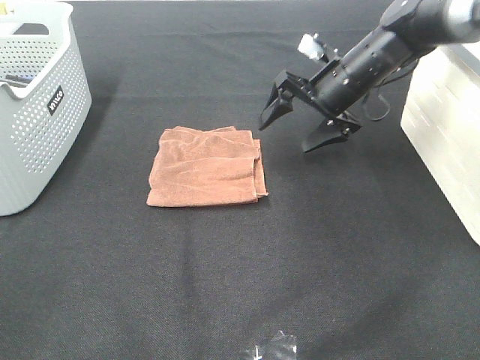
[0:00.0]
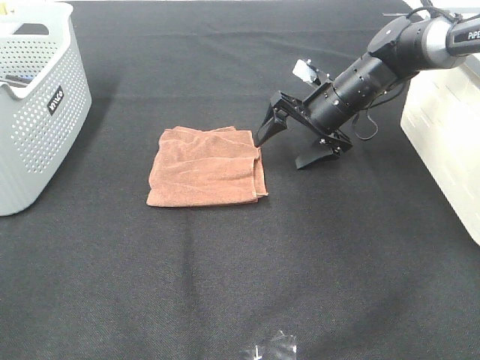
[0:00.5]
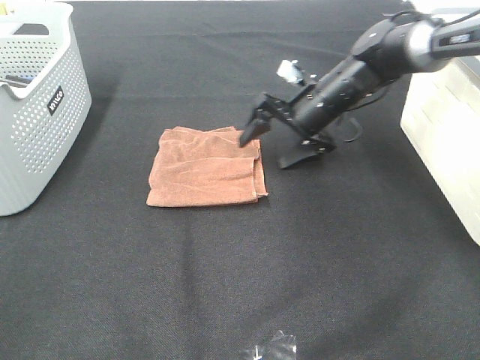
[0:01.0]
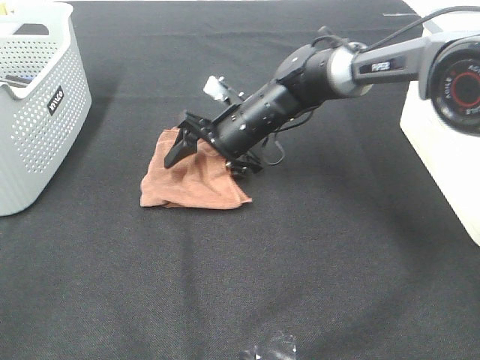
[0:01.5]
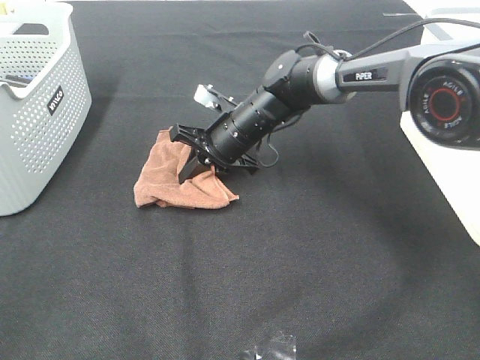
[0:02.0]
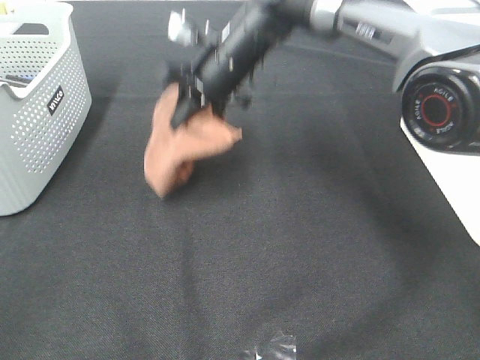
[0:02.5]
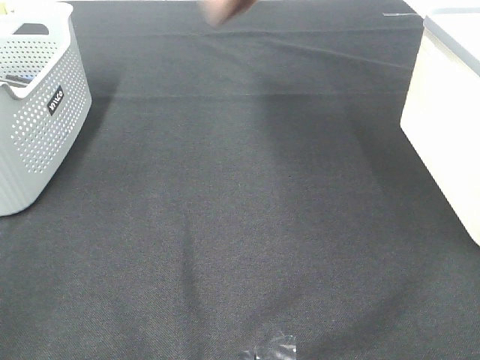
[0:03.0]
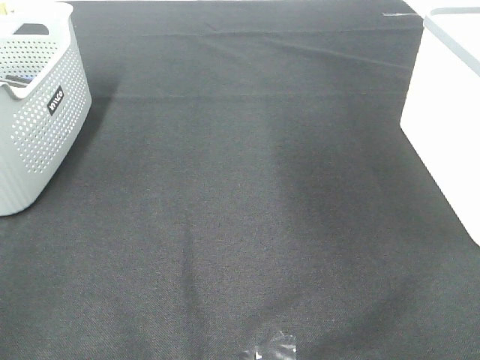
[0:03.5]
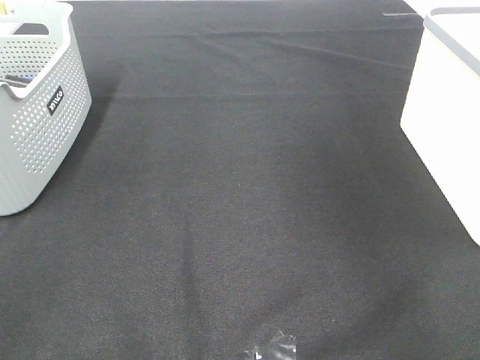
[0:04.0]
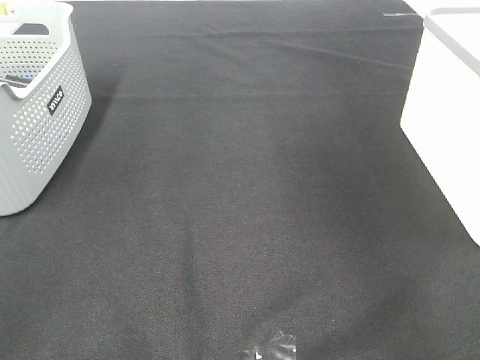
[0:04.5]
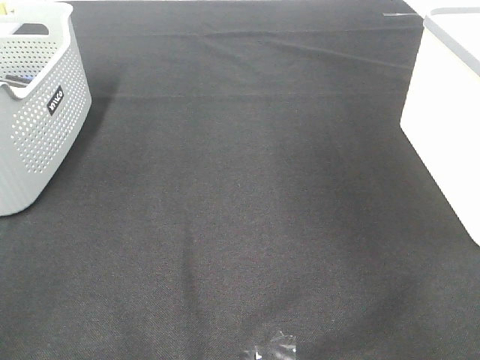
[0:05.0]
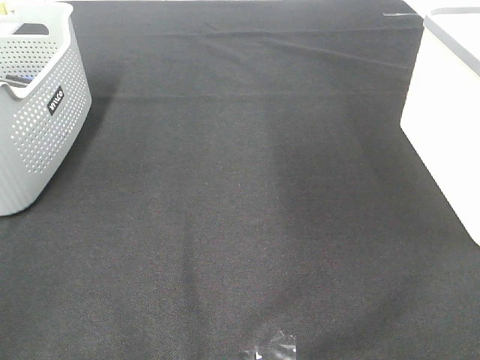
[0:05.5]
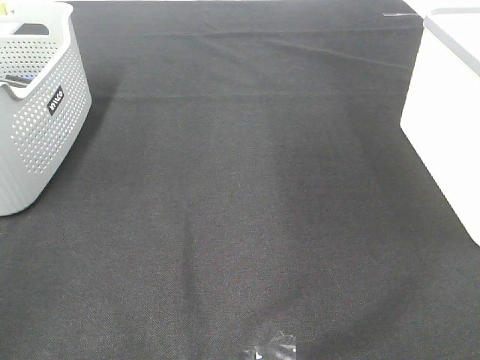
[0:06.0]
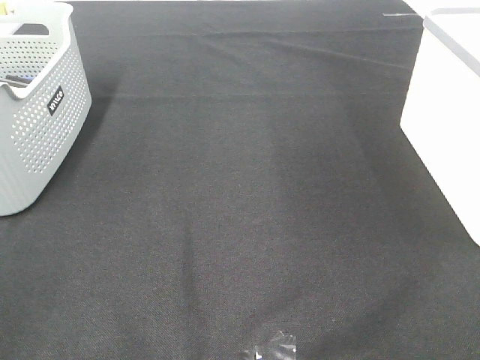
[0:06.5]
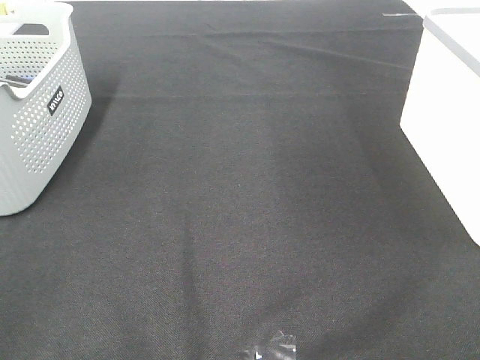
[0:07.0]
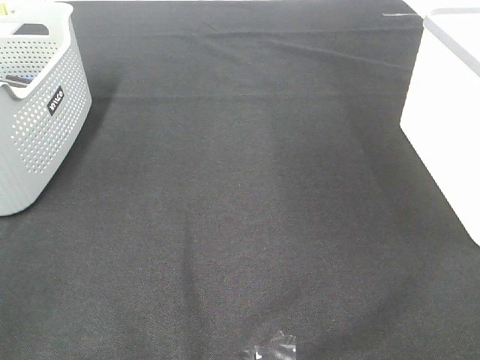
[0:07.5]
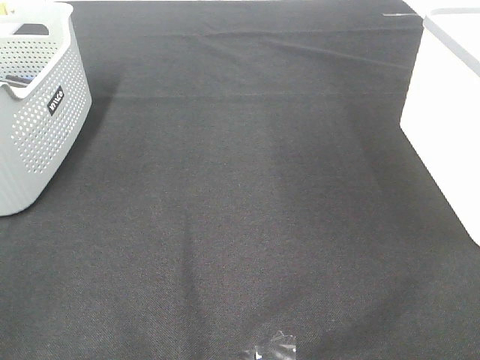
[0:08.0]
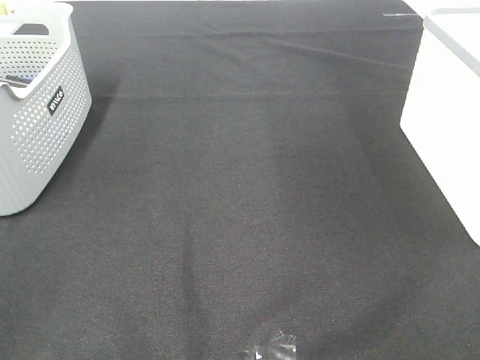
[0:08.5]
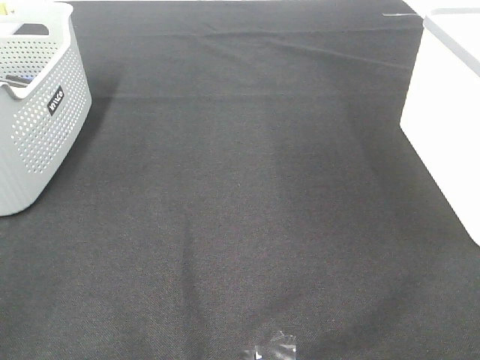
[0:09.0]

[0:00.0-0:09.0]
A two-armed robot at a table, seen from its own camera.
Step, 0:02.0 to 0:04.5: Right hand: place the brown towel in right basket.
0:00.0 to 0:02.0: The right gripper is displaced to the left and downward by roughly 15 cm, and closes up.
0:02.0 to 0:04.5: The right gripper is displaced to the right and upward by approximately 50 cm, and opens its fingers.

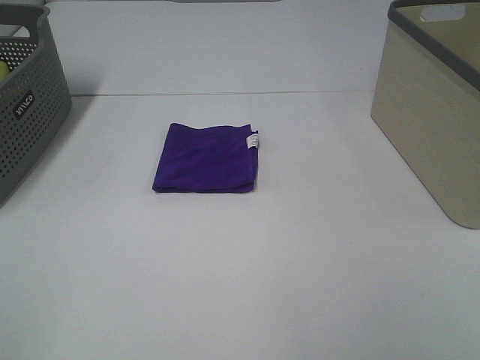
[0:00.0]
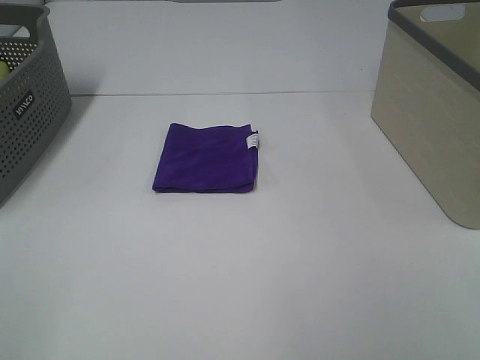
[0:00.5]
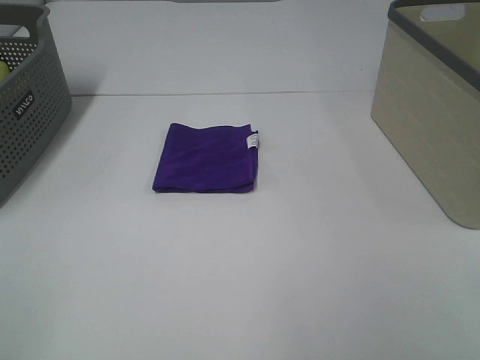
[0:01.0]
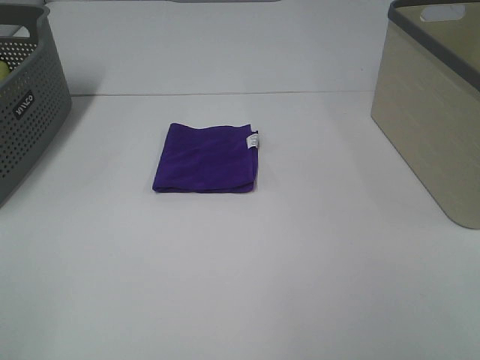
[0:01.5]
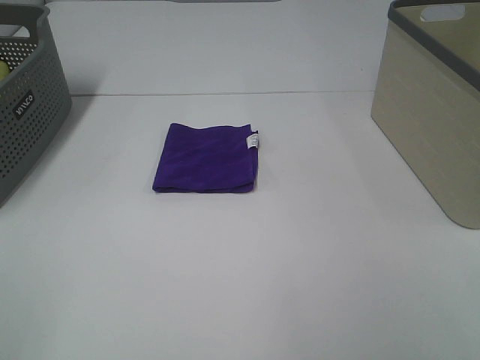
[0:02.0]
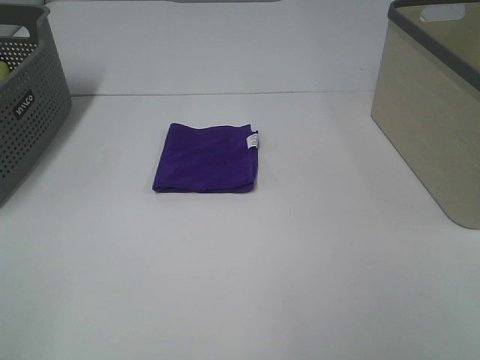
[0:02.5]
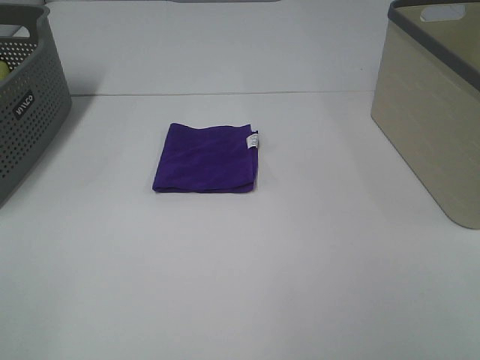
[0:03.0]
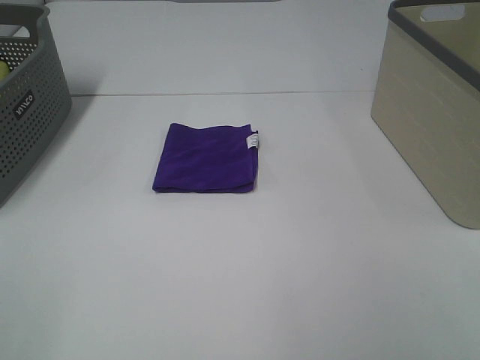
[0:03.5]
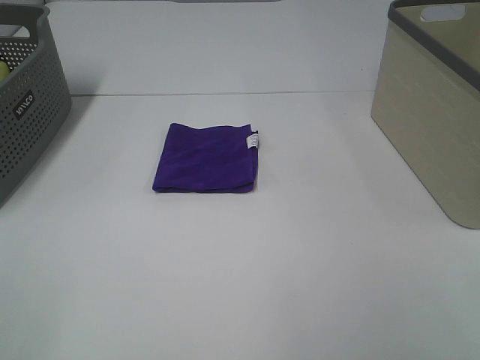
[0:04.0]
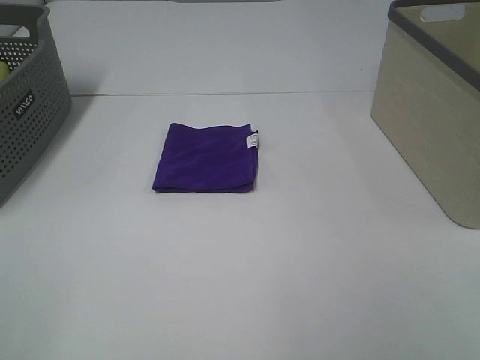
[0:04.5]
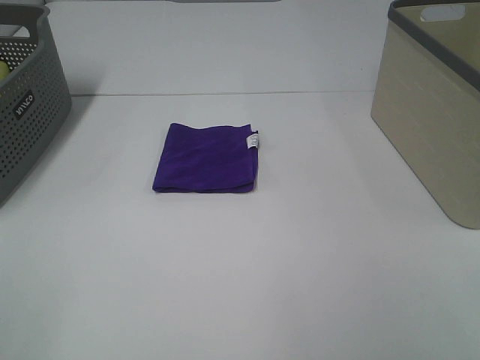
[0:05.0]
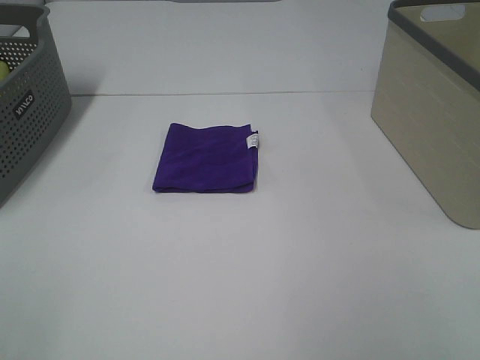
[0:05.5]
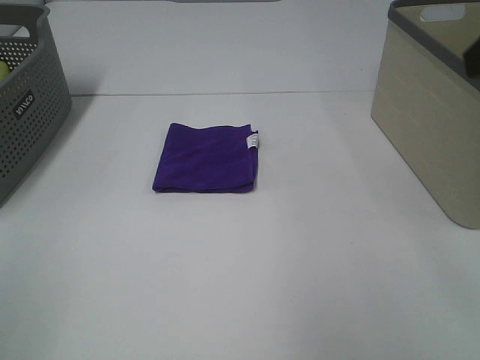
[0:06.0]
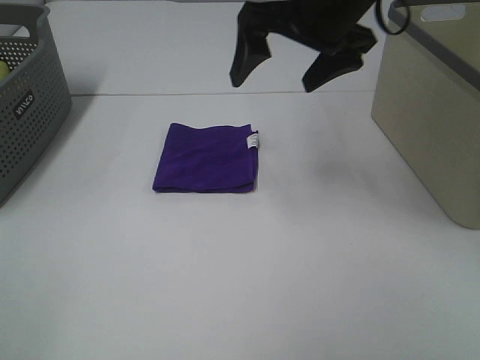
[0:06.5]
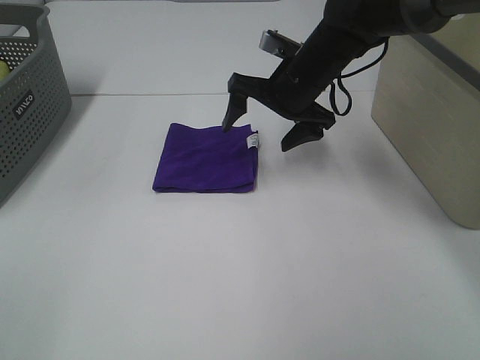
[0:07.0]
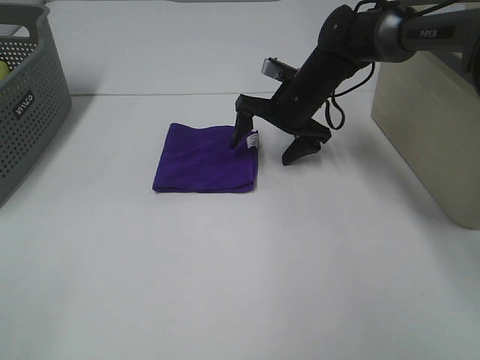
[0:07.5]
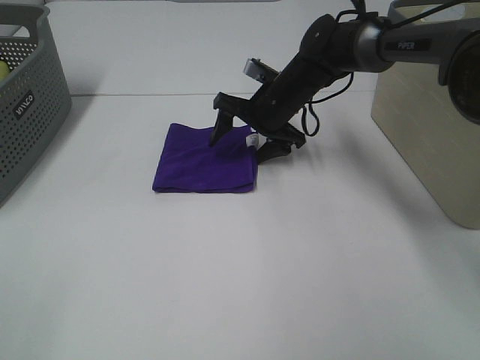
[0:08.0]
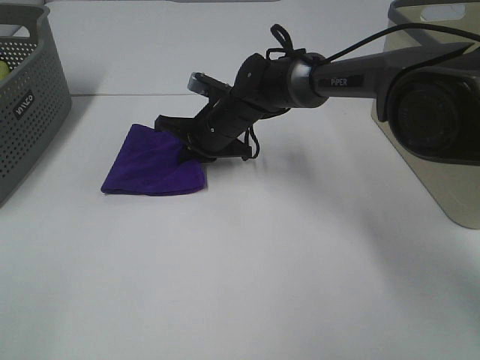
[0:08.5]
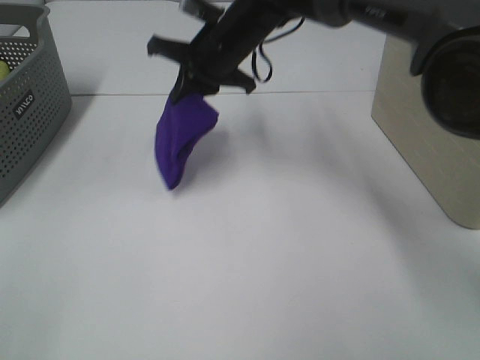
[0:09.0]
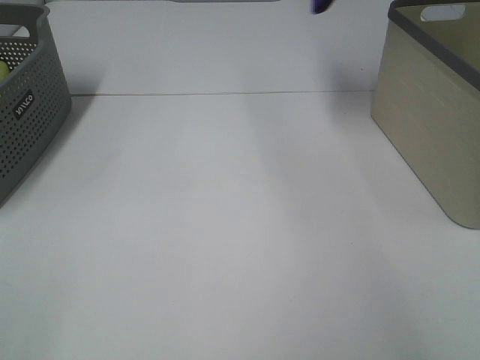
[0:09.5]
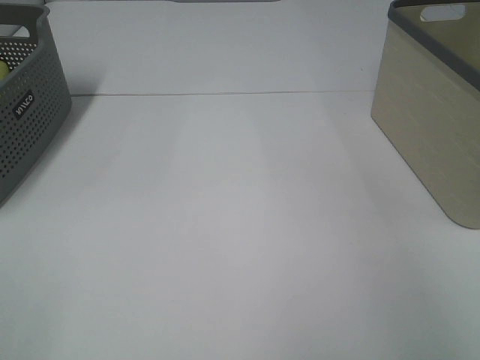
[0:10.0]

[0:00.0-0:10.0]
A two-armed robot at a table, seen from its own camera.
Step, 0:00.0 to 0:08.0: Right hand: grab the folded purple towel.
0:00.0 to 0:04.0: Both grippers stay about where they are.
0:06.0 to 0:08.0: The right gripper goes some 40 cm downward, forward and to the left.
0:08.0 to 0:10.0: The right gripper moves to the right and upward, approximately 50 cm, and closes.

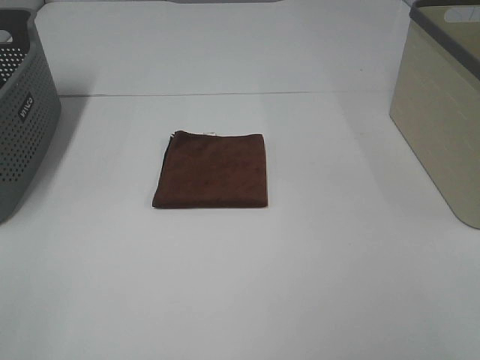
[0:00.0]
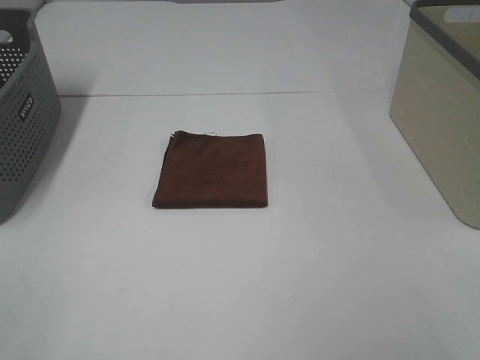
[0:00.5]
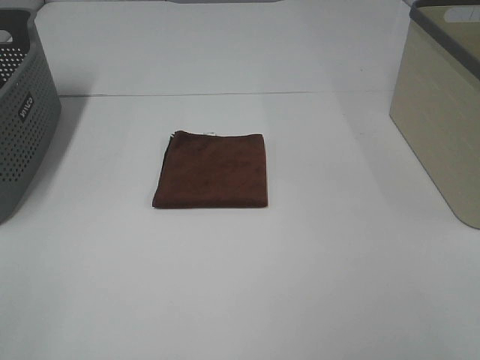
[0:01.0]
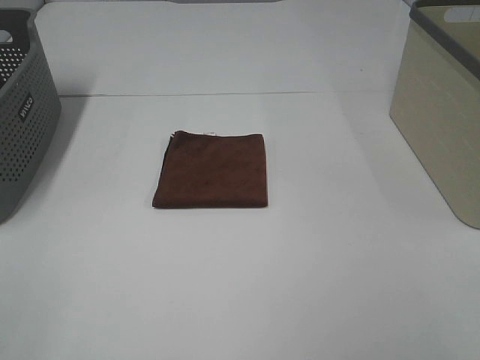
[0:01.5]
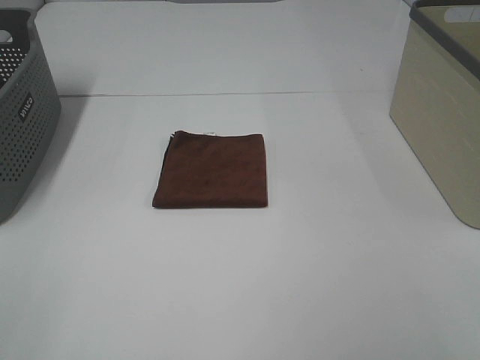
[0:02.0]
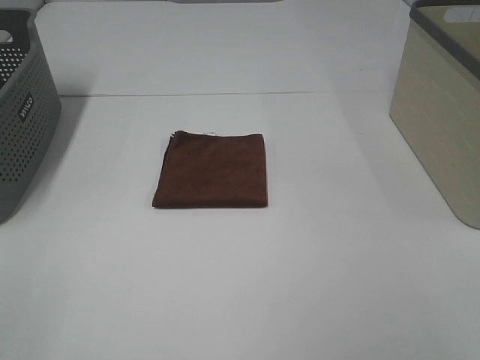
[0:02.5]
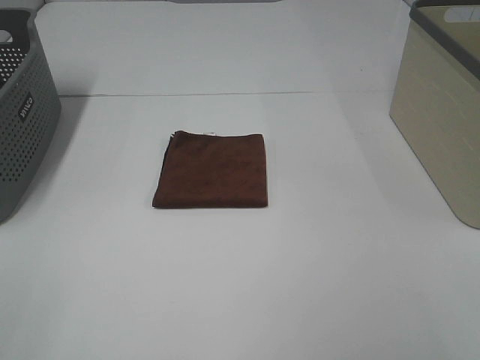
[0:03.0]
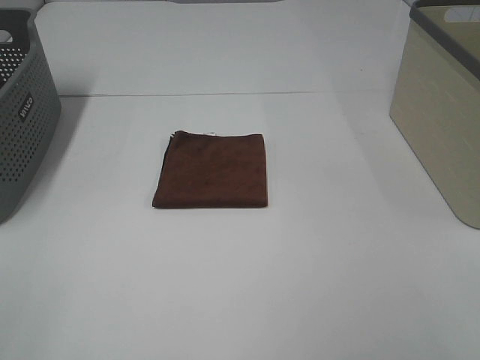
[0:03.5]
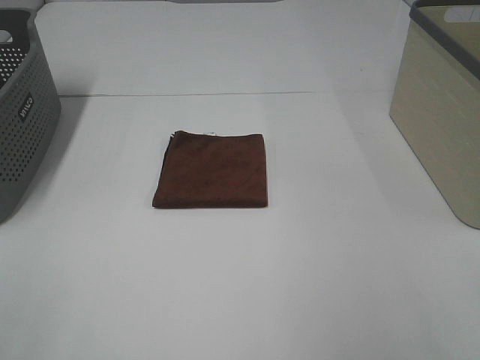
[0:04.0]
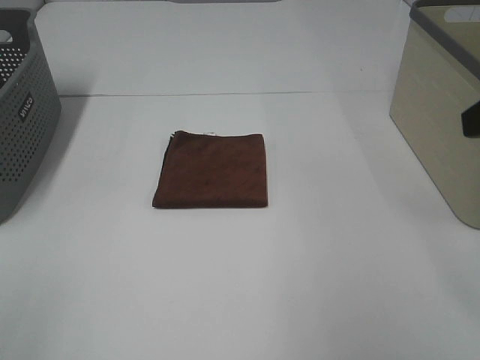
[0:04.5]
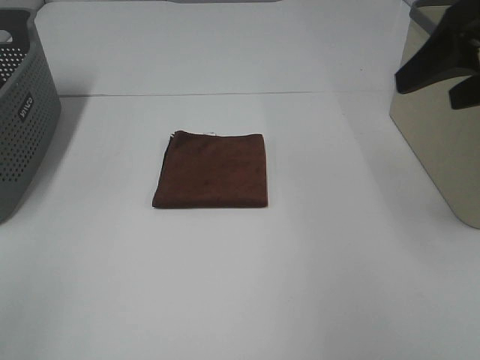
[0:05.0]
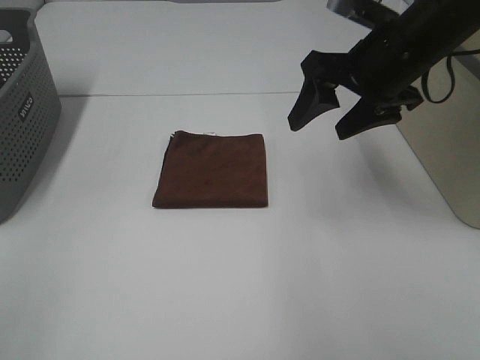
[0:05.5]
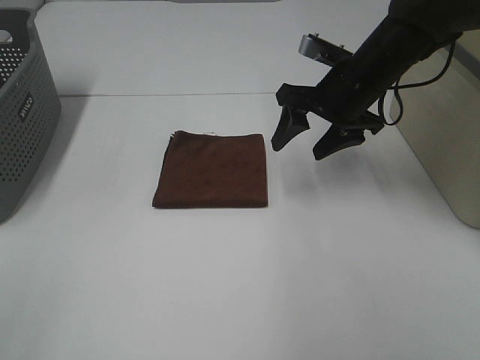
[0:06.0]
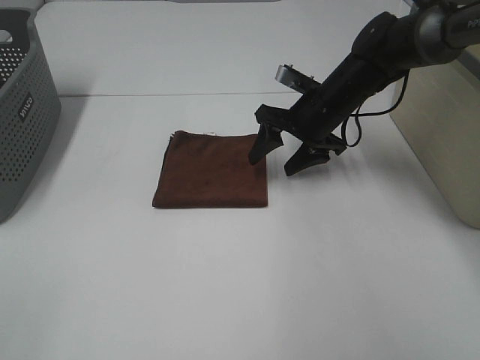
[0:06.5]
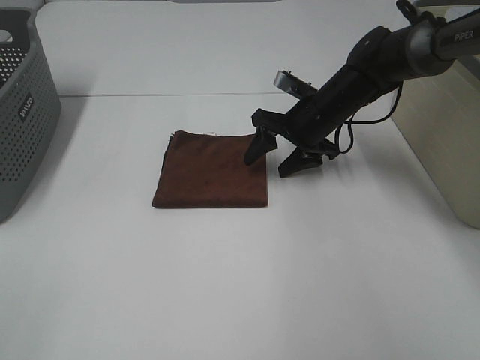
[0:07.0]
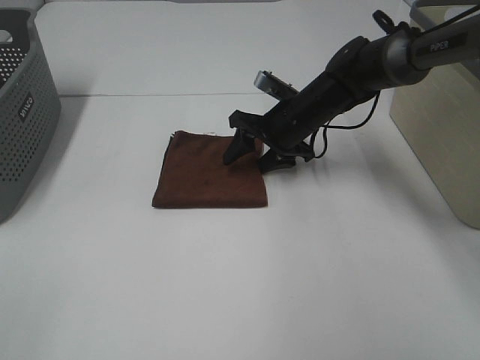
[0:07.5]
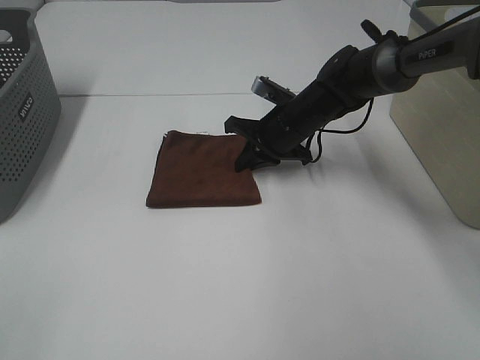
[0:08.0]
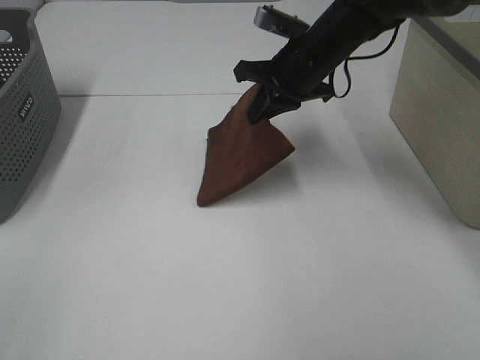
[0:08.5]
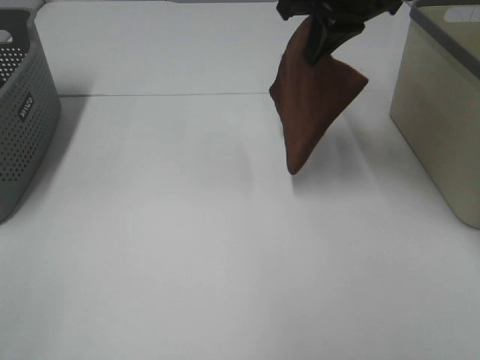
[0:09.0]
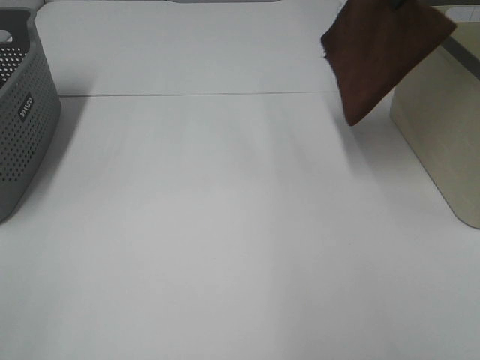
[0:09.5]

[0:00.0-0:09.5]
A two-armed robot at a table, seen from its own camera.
Step, 0:00.0 to 0:08.0: Right hand: grab the folded brown towel.
0:00.0 to 0:02.0: Both grippers stay about where they are.
0:04.0 to 0:05.5: The right gripper goes approximately 30 cm forward and to the left.
0:05.5 to 0:07.5: The right gripper is displaced downward, forward and to the left by about 20 cm.
0:07.5 to 0:09.5: The right gripper shifts approximately 30 cm upward and to the right, and closes its fingers.
